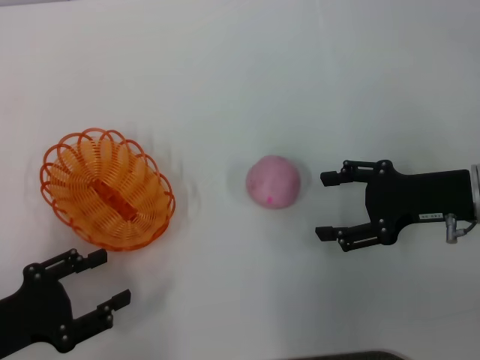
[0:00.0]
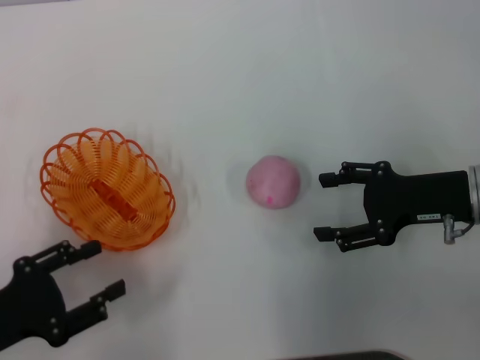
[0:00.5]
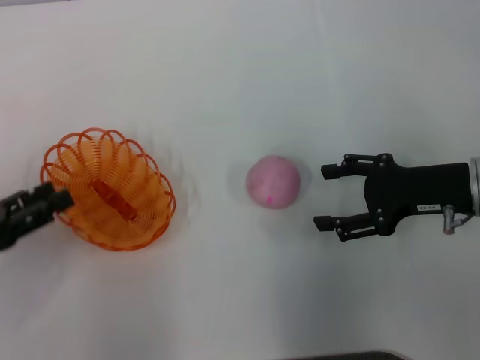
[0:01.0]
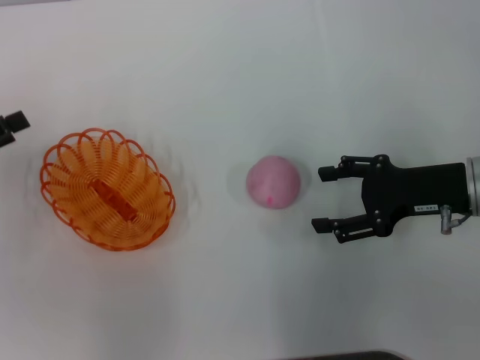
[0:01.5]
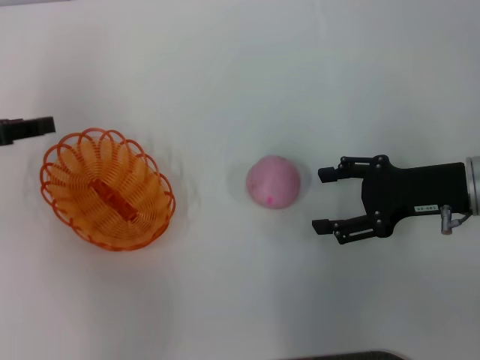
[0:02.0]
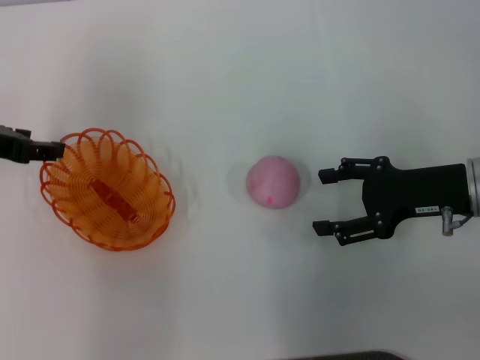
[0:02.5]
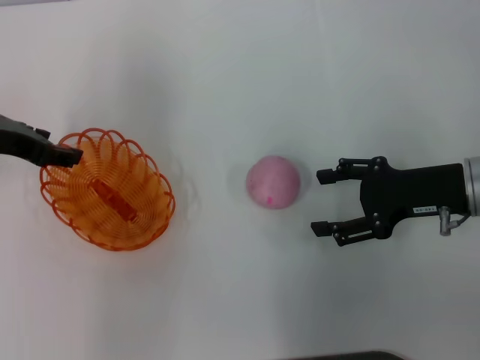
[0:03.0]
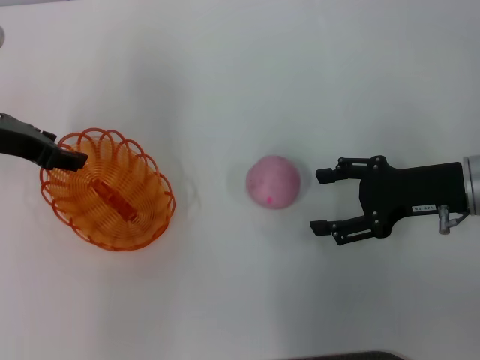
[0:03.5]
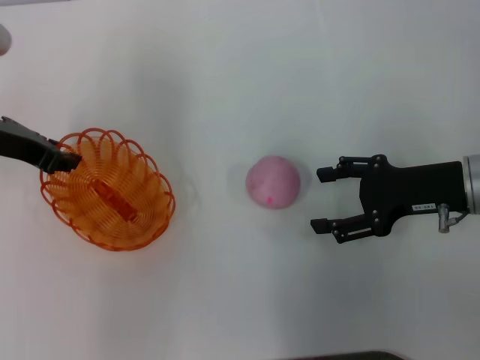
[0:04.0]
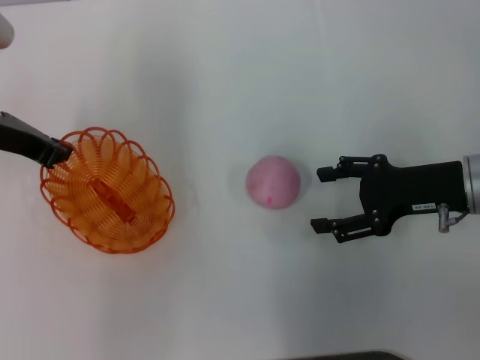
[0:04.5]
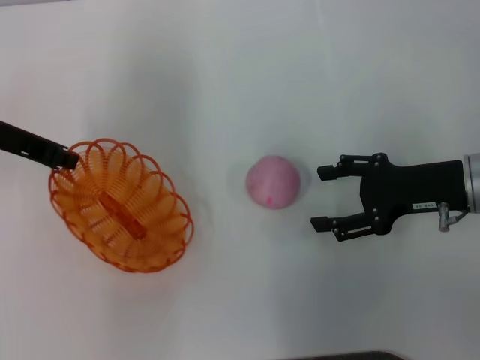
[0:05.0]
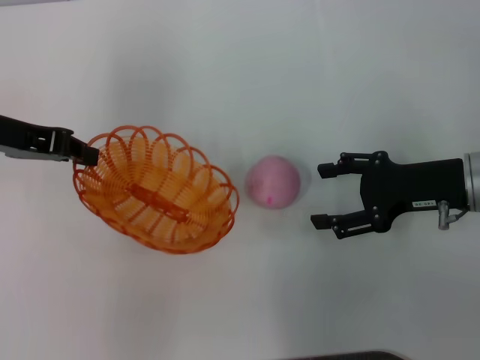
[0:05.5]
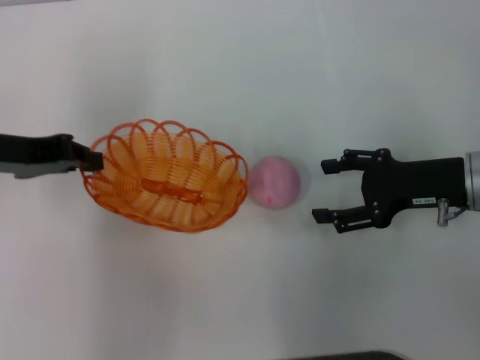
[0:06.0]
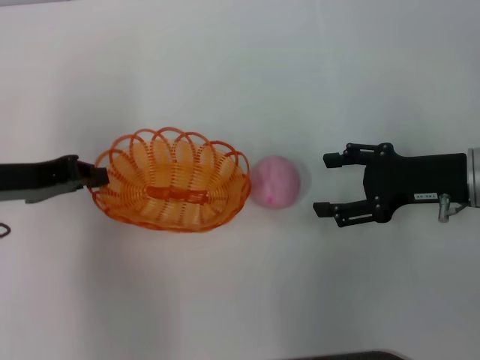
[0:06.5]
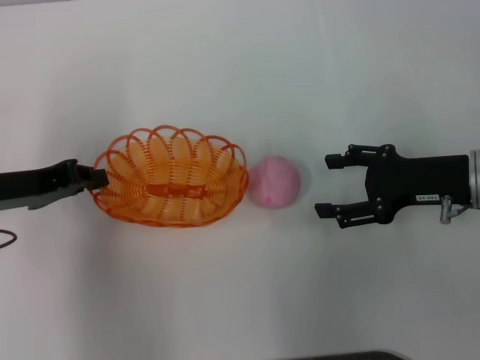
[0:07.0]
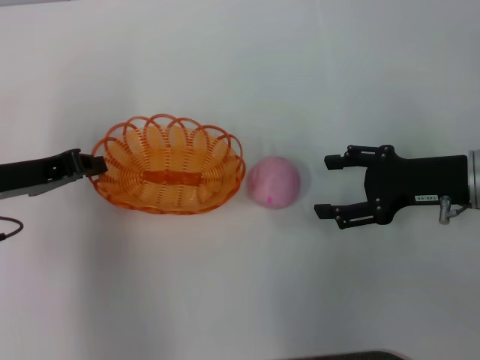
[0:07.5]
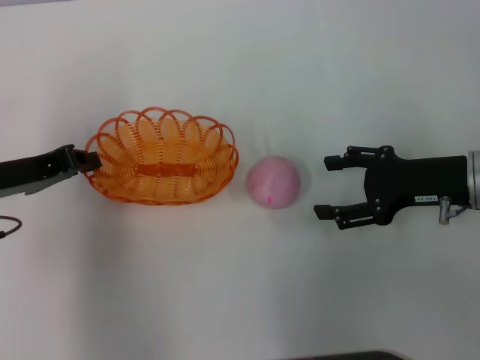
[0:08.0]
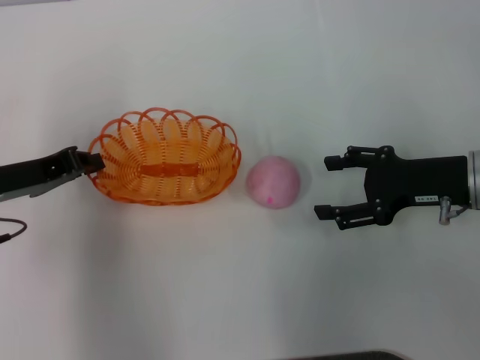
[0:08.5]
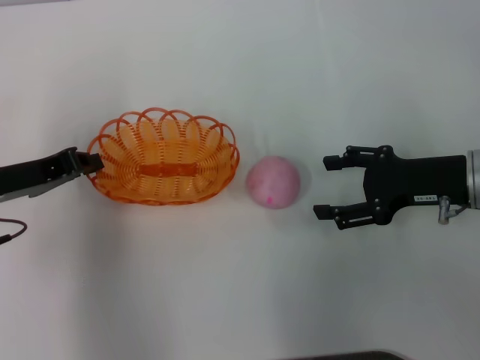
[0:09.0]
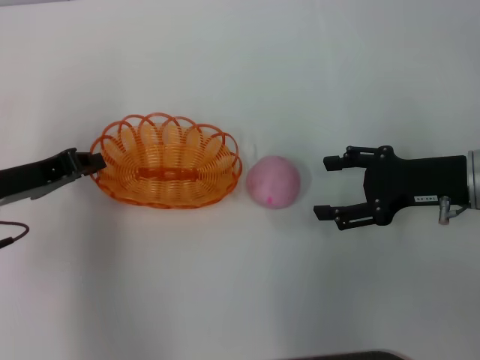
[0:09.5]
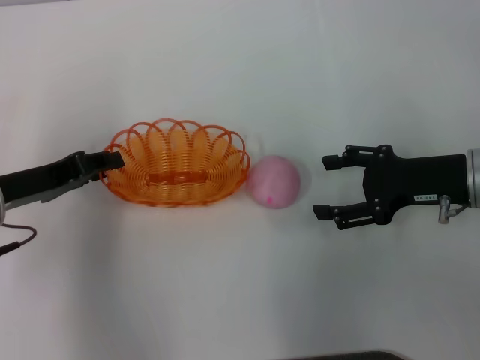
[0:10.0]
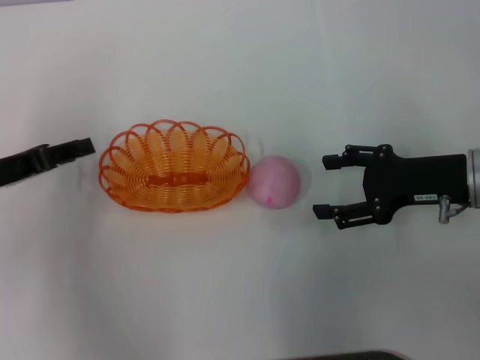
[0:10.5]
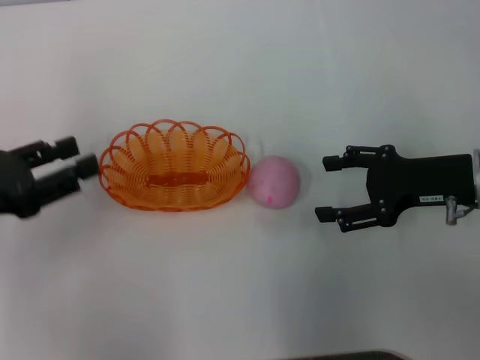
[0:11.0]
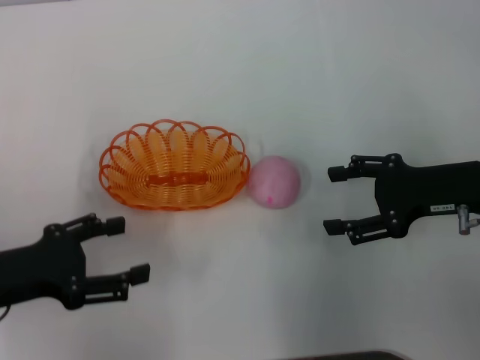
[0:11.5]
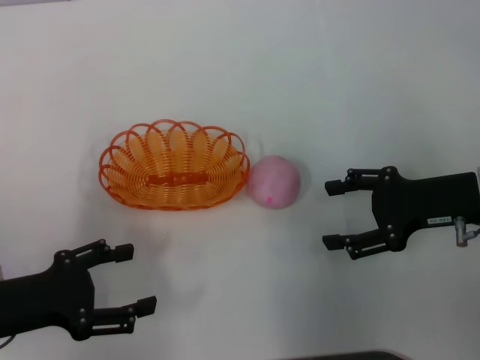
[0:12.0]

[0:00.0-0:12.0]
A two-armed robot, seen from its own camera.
Step, 0:00.0 to 0:05.0: Pick up the basket with the left gripper.
Step, 0:05.5 to 0:10.0: Place the basket in the center of view with the left gripper.
0:00.0 to 0:02.0: The left gripper moves forward and upward, about 20 cm.
0:02.0 to 0:04.0: The left gripper goes about 5 cm to the right.
0:04.0 to 0:06.0: The left gripper closes its fingers.
0:06.0 to 0:08.0: The left gripper ends up approximately 5 cm from where it was.
0:08.0 to 0:10.0: The grippers make only small movements.
0:10.0 to 0:12.0: The left gripper is displaced backward by some 10 cm, and opens.

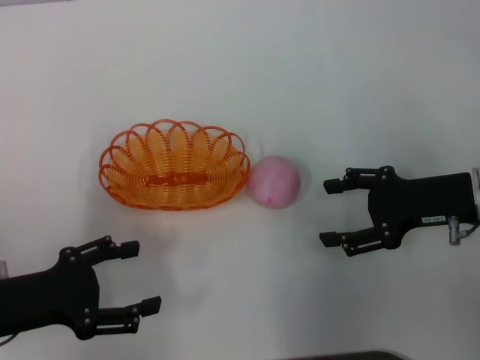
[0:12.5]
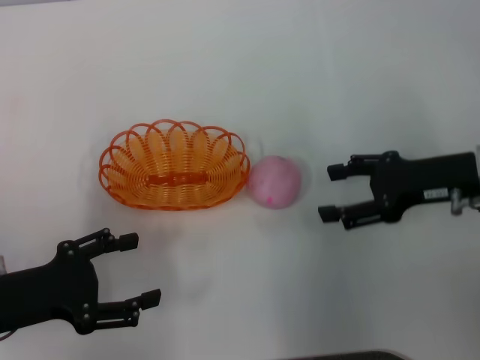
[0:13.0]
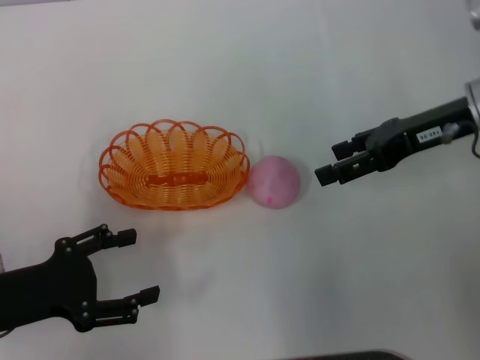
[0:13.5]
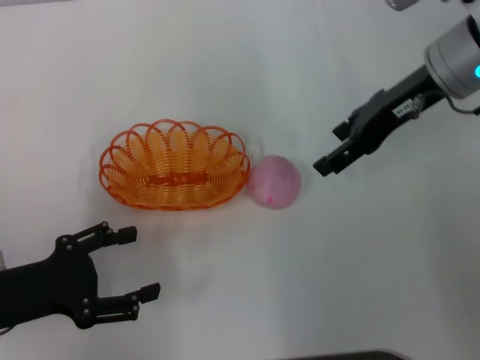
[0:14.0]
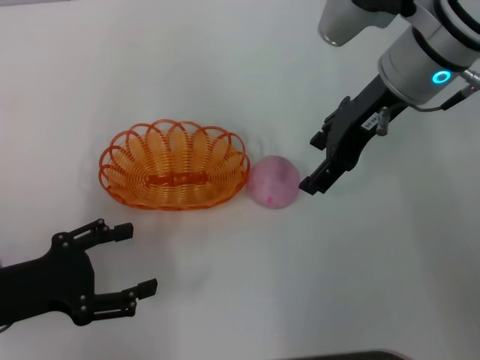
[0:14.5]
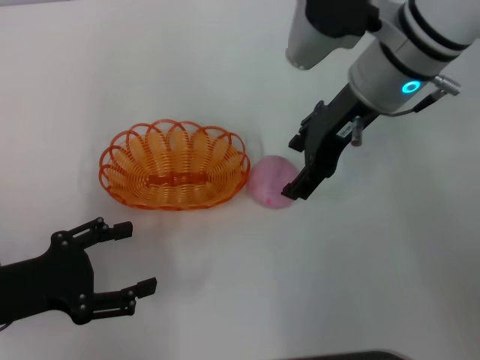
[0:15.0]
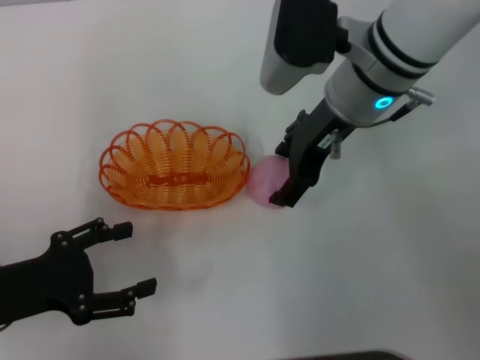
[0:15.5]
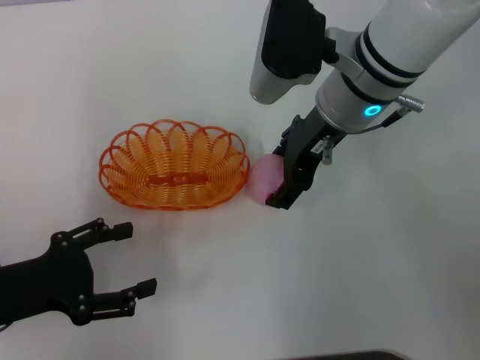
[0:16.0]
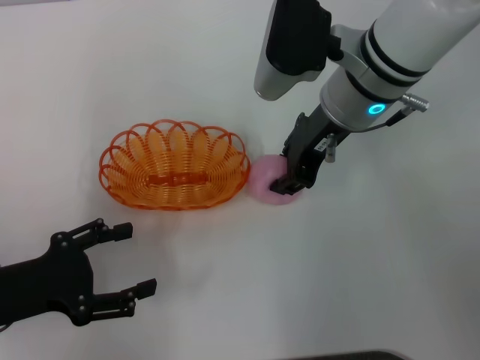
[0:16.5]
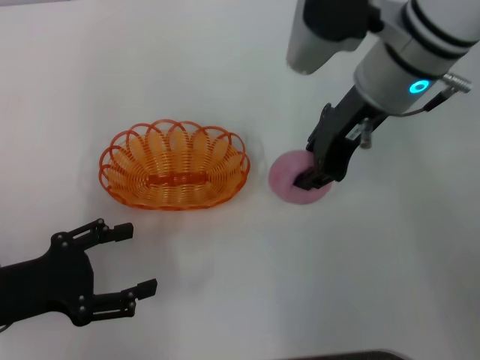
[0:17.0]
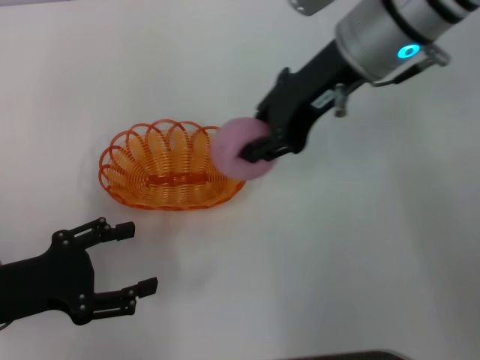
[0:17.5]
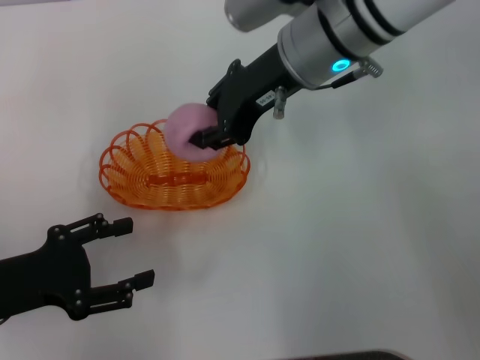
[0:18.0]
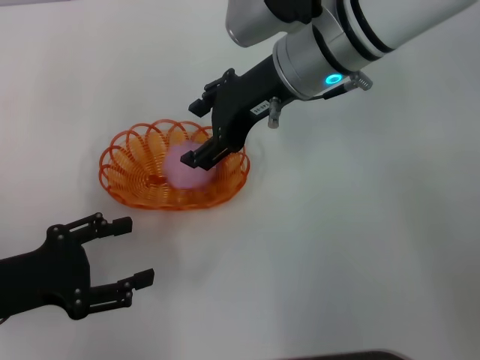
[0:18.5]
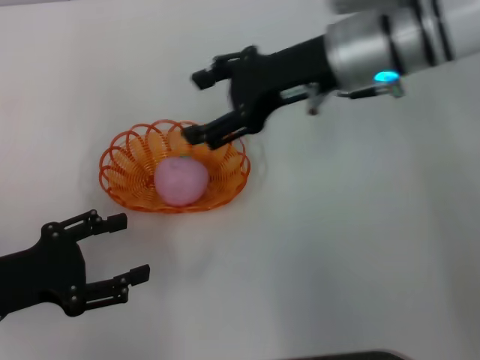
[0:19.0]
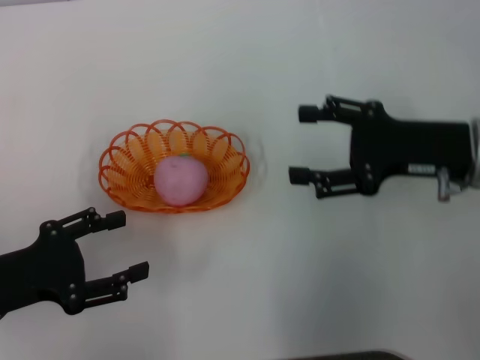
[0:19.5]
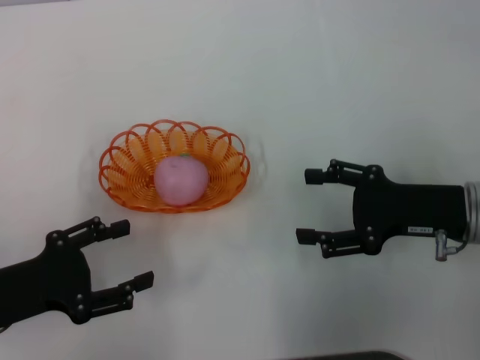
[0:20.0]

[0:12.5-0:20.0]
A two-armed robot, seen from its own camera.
Step, 0:12.5 to 0:17.0: Pick up the peach with the right gripper.
Step, 0:17.5 to 0:18.5: Place the peach into the basket with the right gripper.
0:12.5 to 0:14.5: The right gripper shifts some 20 cm upward, to the left and forward.
0:14.5 to 0:16.5: The right gripper changes place by approximately 5 cm, and closes its fingers.
0:16.5 to 0:18.0: The right gripper closes its fingers.
0:18.0 to 0:20.0: The right gripper travels to the right, downward and backward by about 25 cm, and opens up.

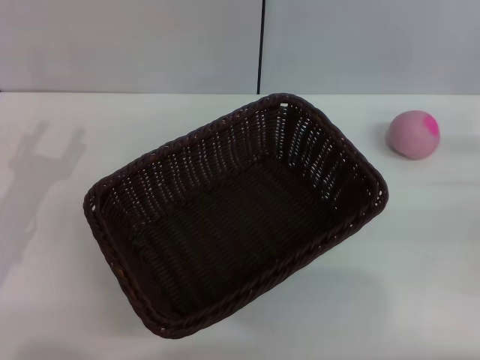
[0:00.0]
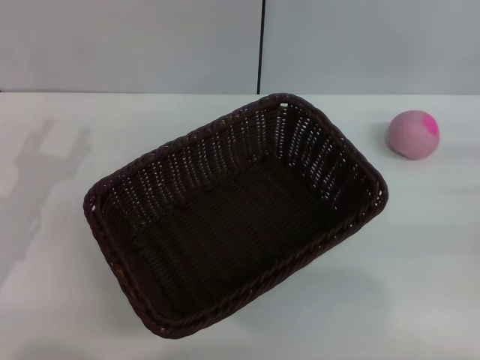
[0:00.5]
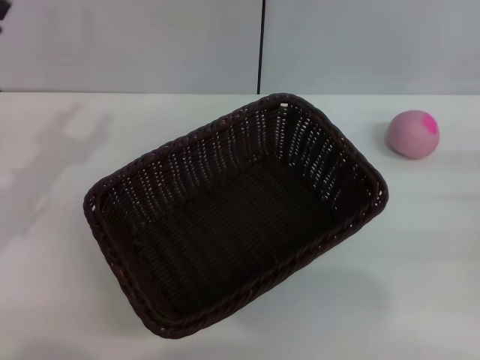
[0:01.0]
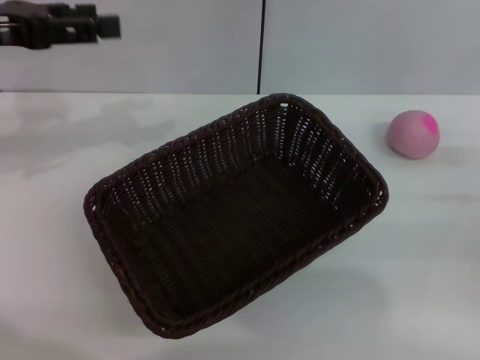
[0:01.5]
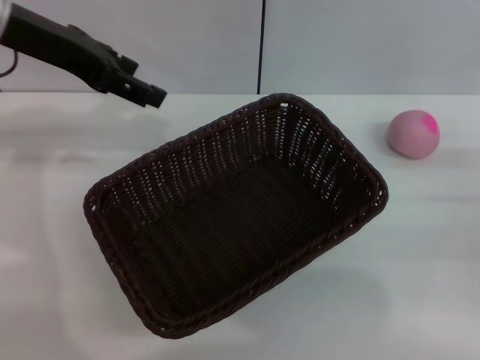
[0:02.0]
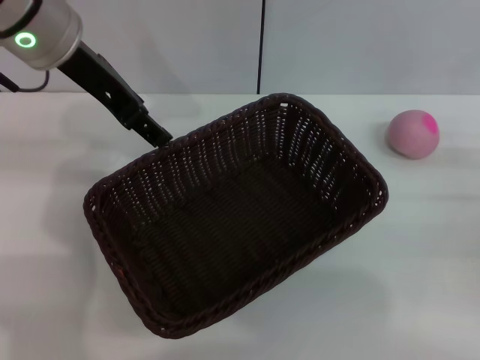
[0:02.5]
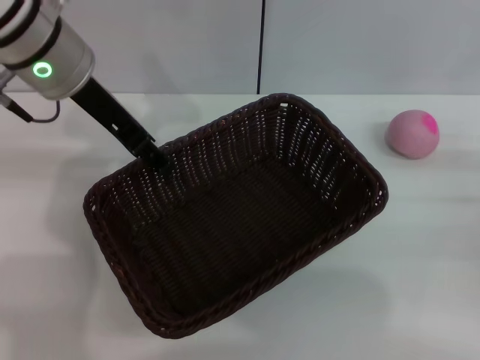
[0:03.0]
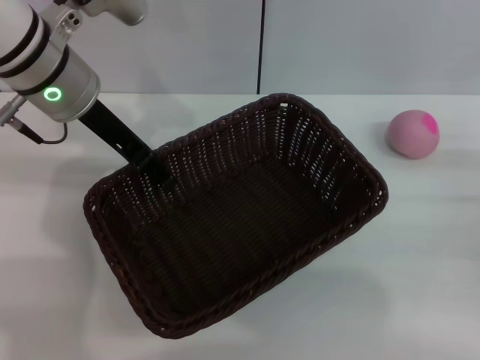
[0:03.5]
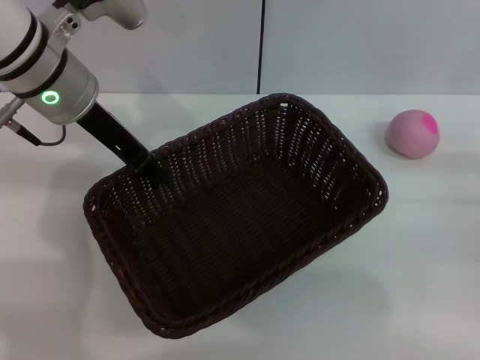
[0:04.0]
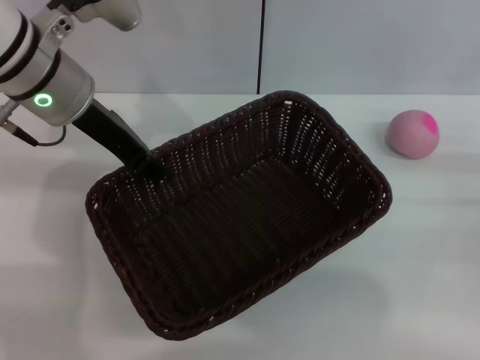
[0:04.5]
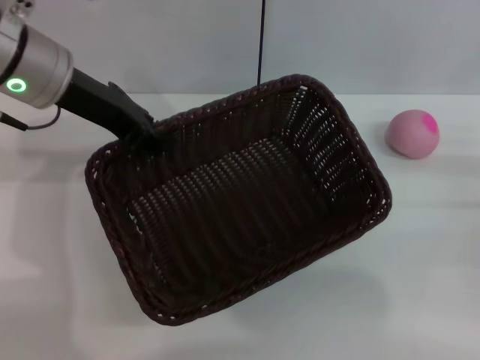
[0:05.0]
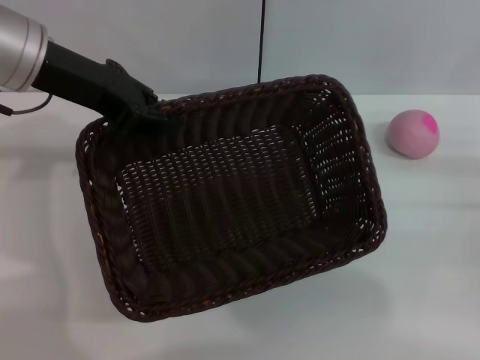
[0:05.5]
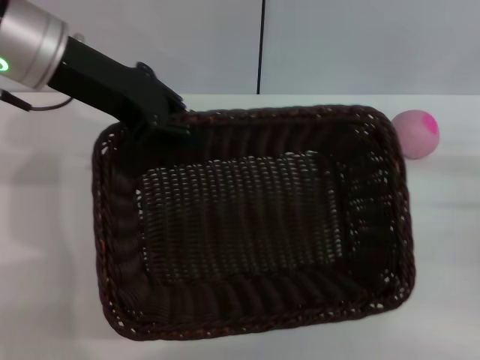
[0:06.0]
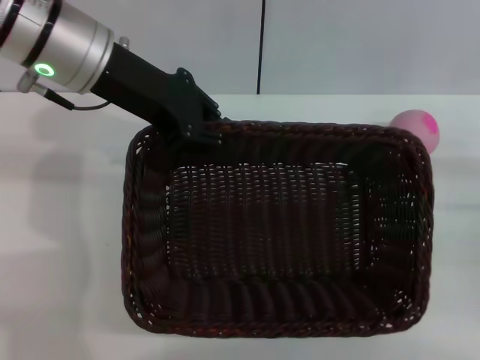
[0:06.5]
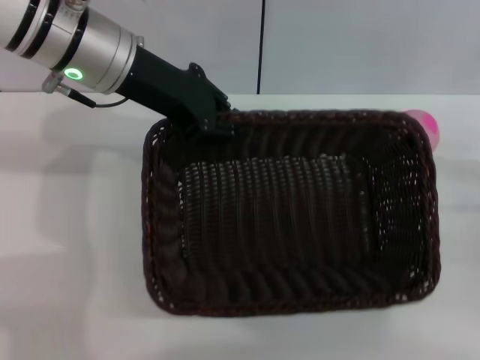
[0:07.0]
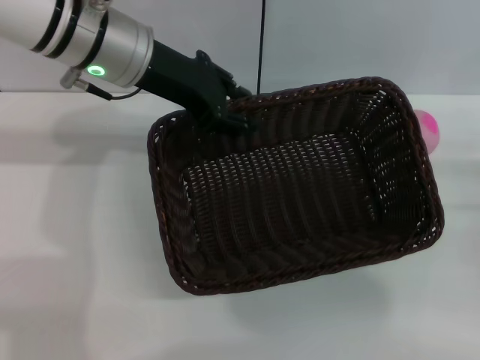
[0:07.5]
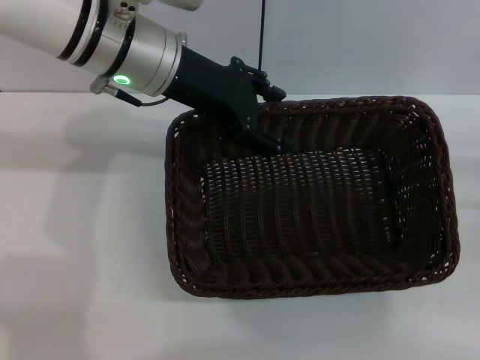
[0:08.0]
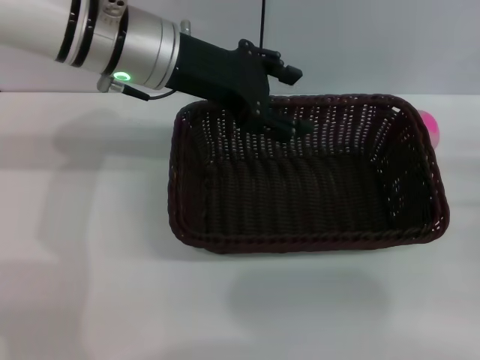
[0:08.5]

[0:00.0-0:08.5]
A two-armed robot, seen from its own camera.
Step, 0:00.0 to 0:04.5: Pick up the dark basket with the left gripper.
0:00.0 to 0:02.0: The left gripper is displaced upward and forward by some 25 cm, and opens up.
0:02.0 to 0:04.0: The left gripper heads downward and to the right, covering approximately 10 cm, and closes.
0:04.0 to 0:06.5: The left gripper closes its fingers.
0:06.5 to 0:08.5: The left gripper opens its fingers.
